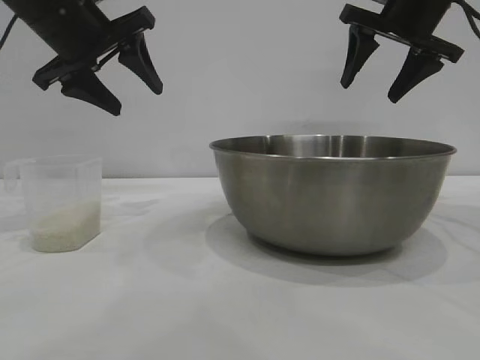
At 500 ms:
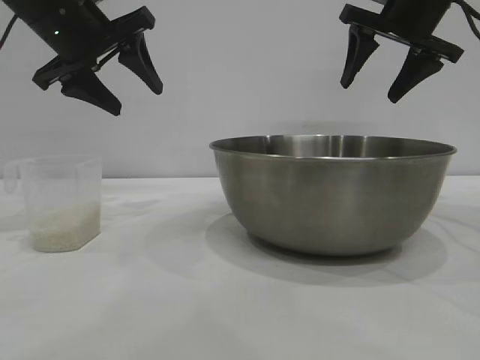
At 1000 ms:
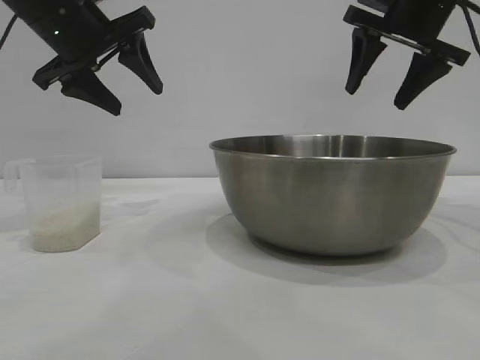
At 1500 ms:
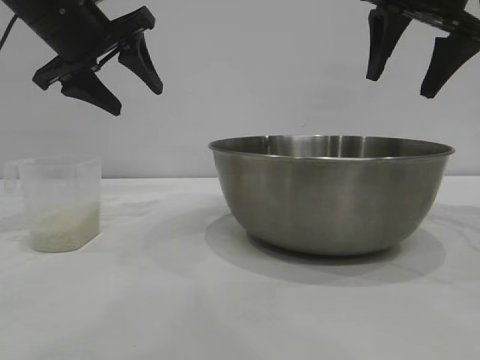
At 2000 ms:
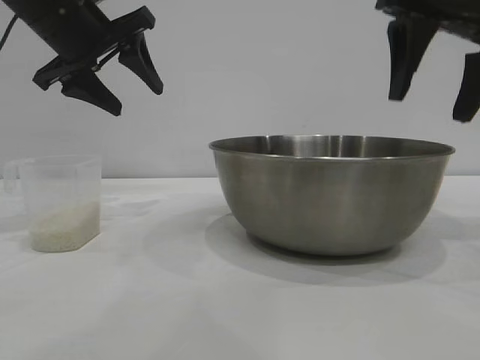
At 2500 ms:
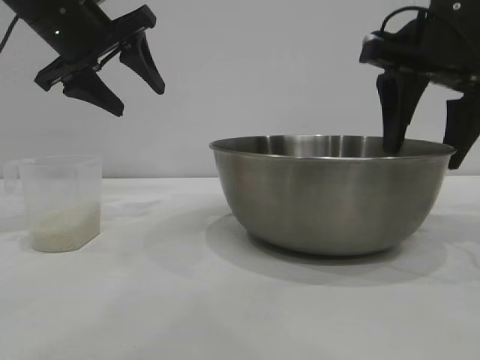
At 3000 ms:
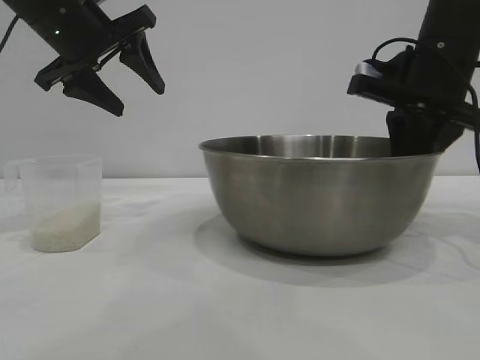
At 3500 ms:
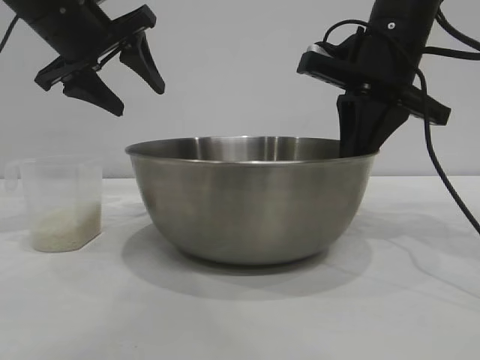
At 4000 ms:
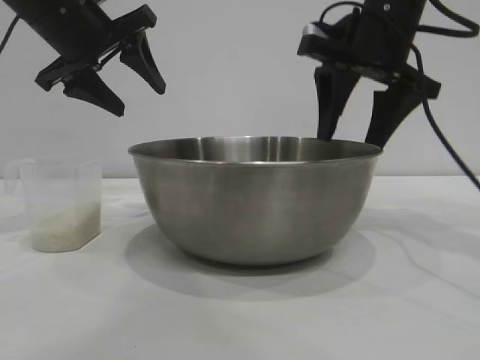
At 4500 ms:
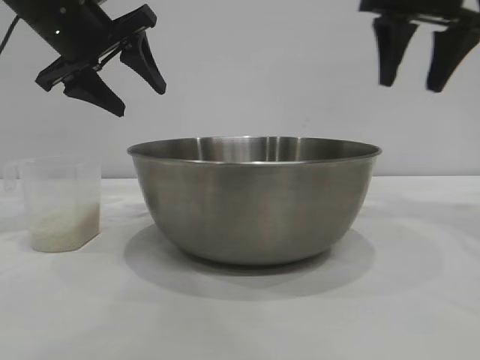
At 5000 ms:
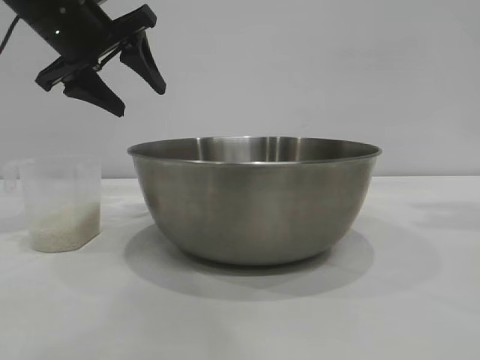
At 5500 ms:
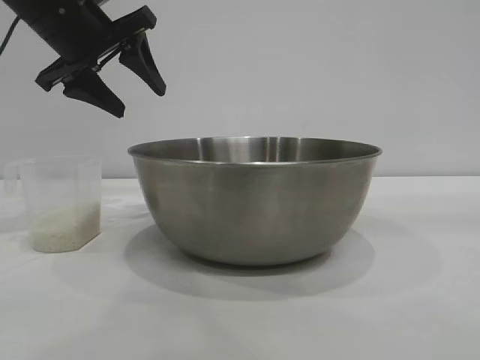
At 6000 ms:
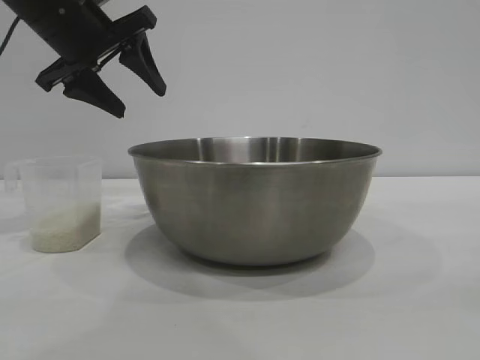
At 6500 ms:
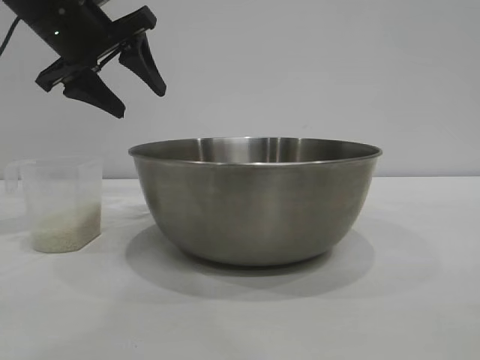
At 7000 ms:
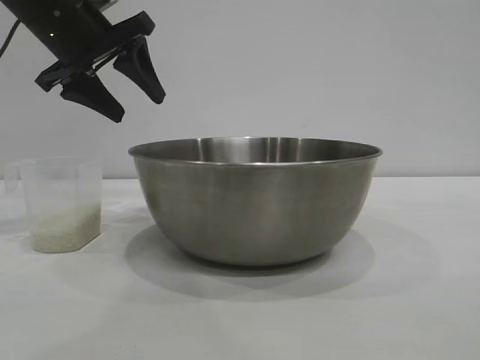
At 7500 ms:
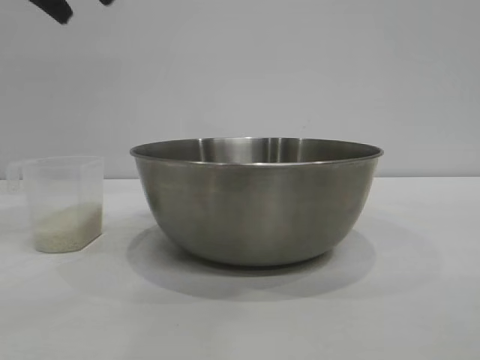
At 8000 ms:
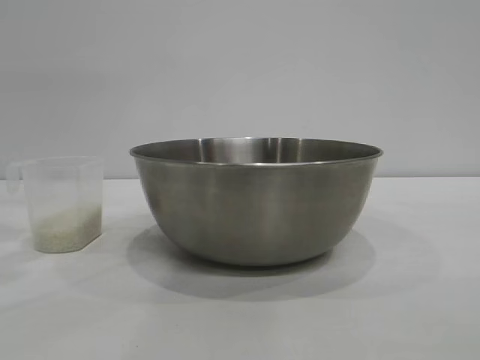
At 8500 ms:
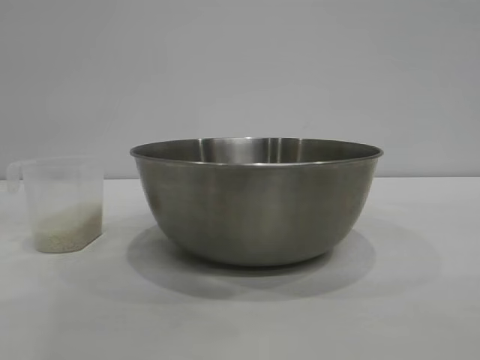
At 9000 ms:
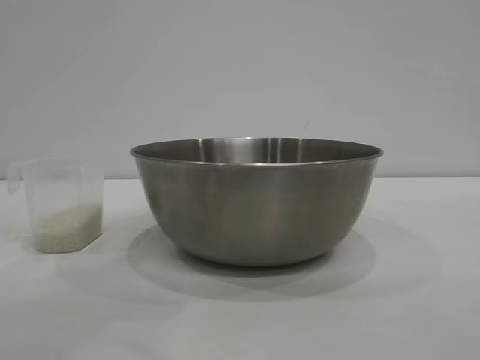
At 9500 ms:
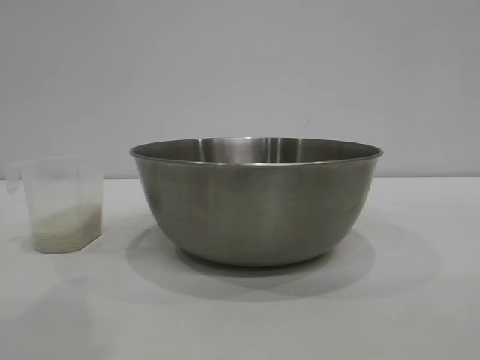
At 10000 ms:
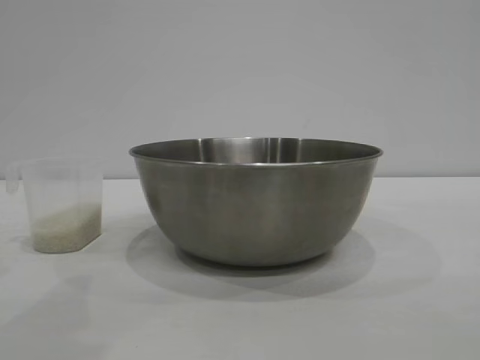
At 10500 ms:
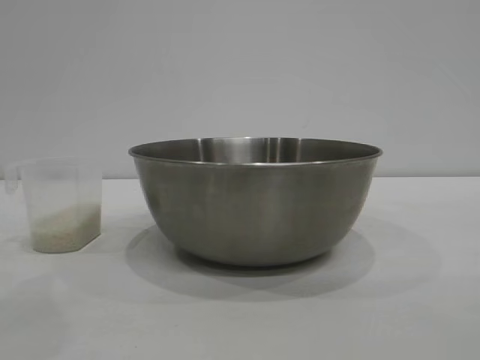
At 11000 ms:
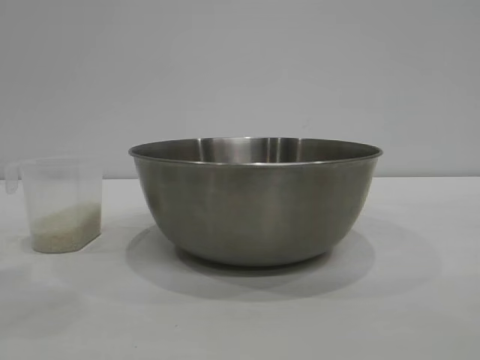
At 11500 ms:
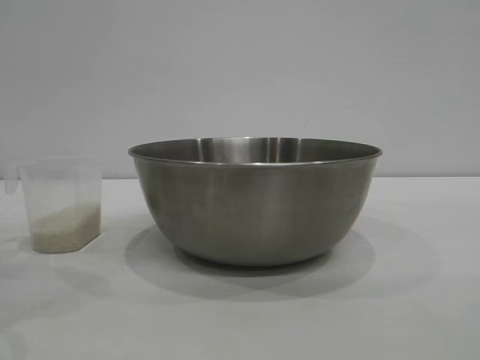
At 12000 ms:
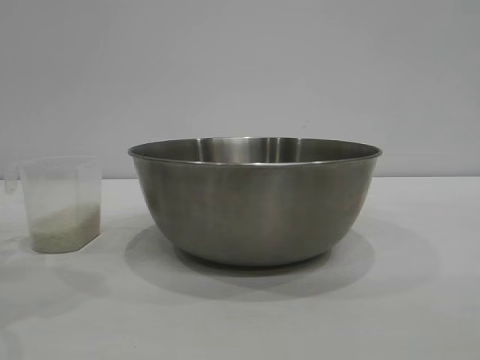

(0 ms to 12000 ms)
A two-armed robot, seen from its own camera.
Task of the whole recording: the right gripper grasp the rice container and place it in the center of the table, the left gripper grasp the rice scoop and pour the rice into the rice container.
Step, 0 ms - 4000 ms: Move the bowl to the center of view with the right gripper.

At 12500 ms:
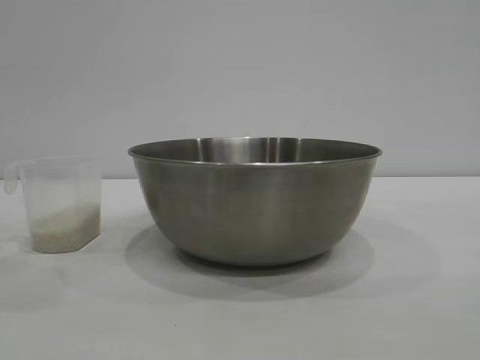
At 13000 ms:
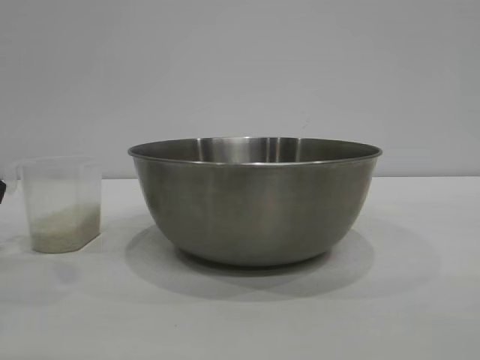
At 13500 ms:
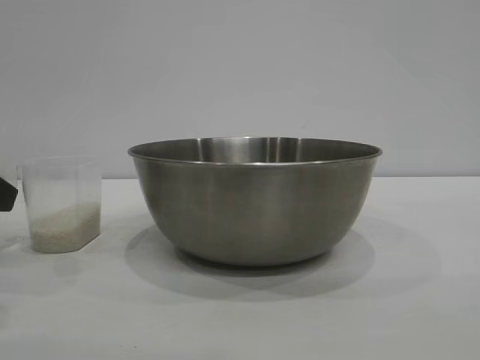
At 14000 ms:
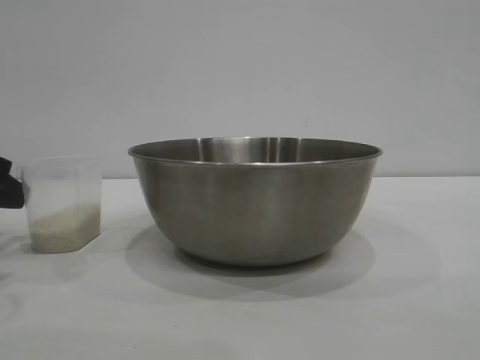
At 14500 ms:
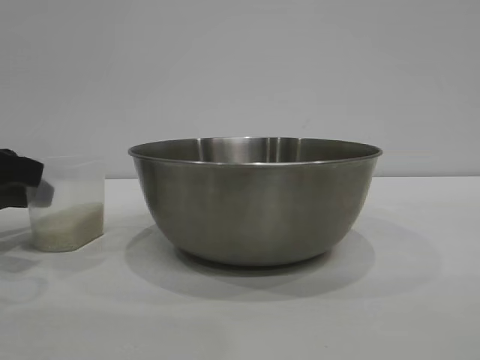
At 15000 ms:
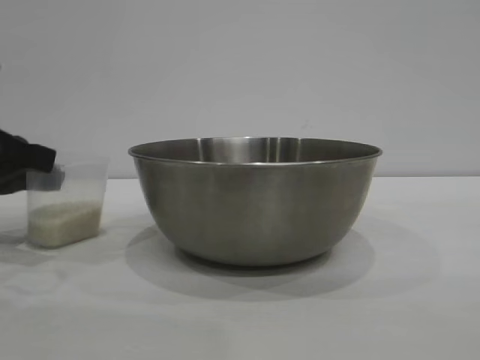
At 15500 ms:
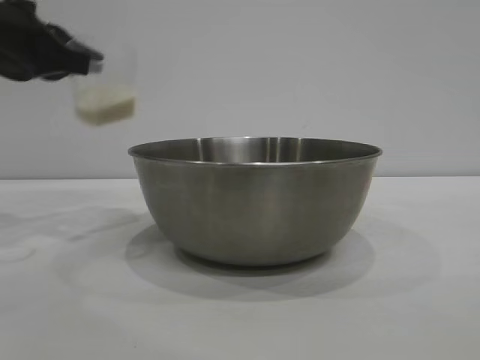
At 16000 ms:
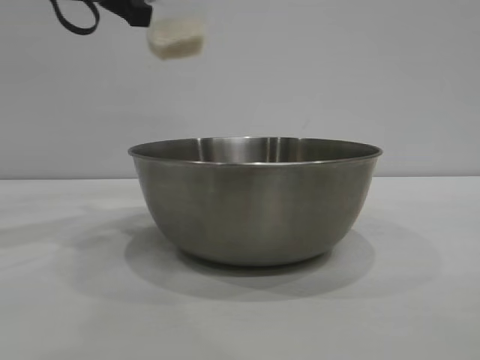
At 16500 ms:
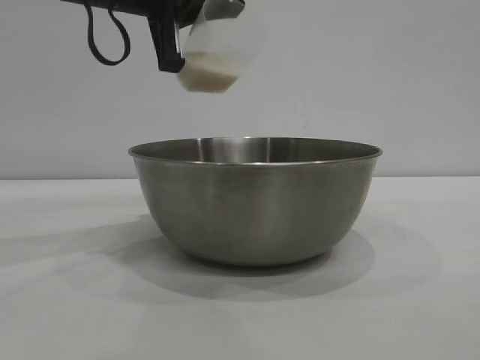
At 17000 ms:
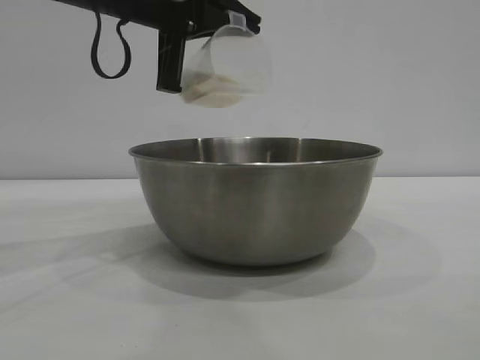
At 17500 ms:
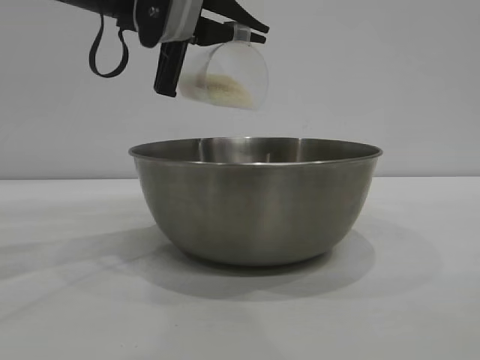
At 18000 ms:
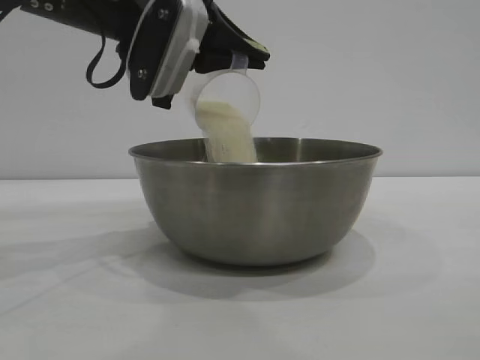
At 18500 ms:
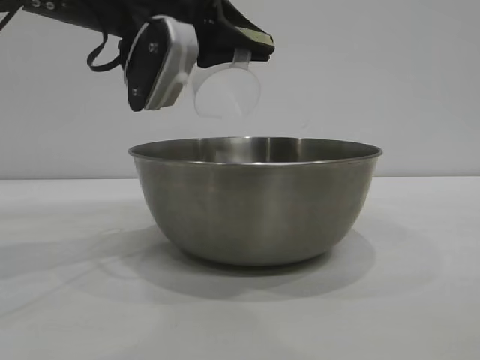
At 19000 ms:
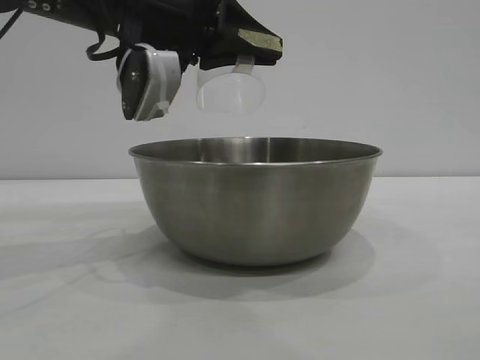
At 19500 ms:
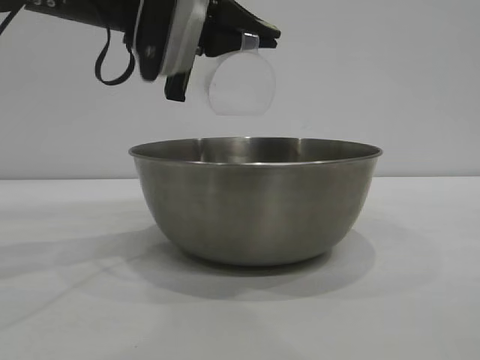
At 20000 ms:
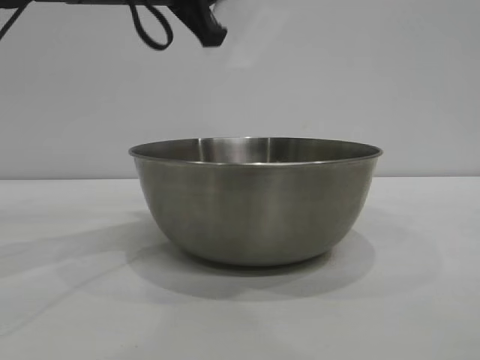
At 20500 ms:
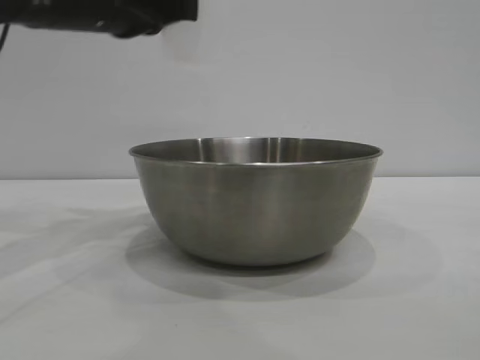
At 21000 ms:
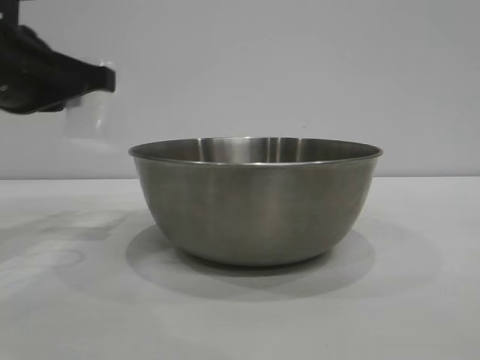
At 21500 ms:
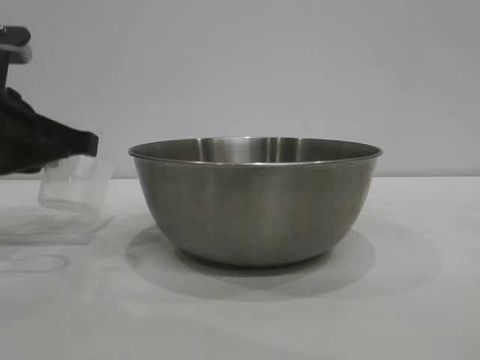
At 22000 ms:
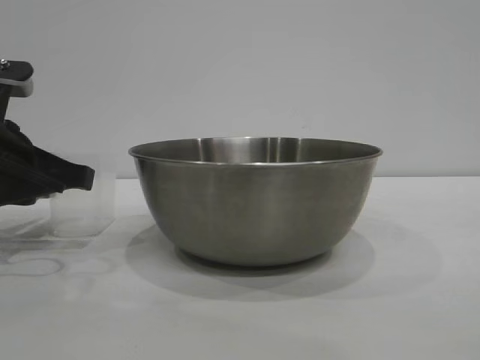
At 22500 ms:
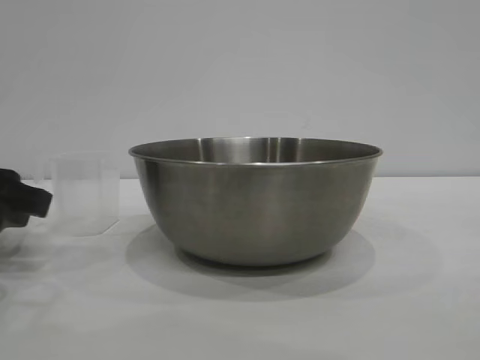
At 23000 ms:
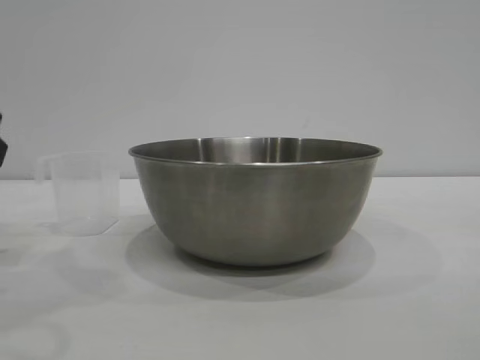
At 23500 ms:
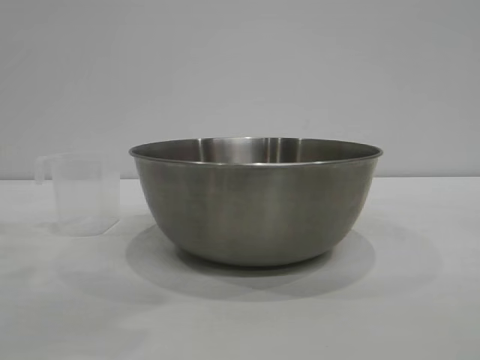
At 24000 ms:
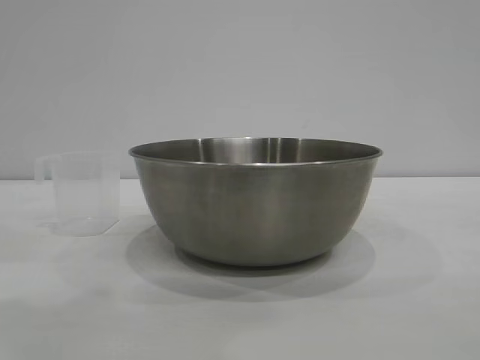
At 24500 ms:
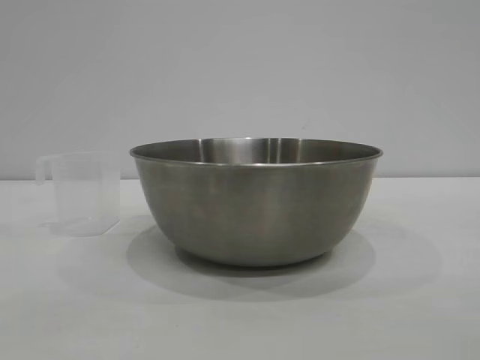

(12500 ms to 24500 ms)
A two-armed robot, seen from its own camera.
Task of the whole recording: the right gripper grasp the rice container and place it in the center of the table, the left gripper grasp the rice scoop and pour the rice into the rice container.
Step, 12500 ms - 15000 ms: Pick up the cup with rice in it with the left gripper.
Step, 15500 ms - 18500 ms: Pour the rice from the cup into the bowl with the left gripper.
Step, 19000 ms - 22500 ms: Place the cup on the table with the left gripper.

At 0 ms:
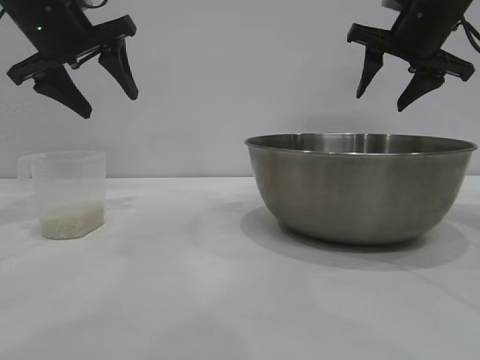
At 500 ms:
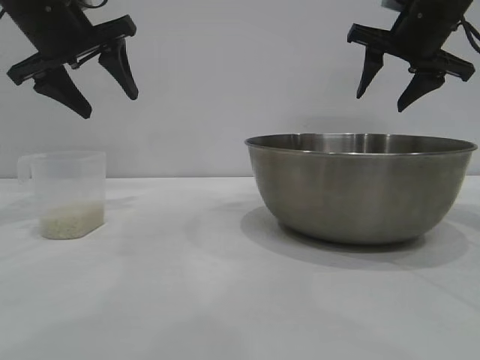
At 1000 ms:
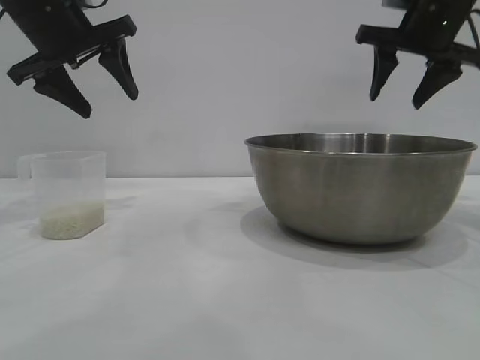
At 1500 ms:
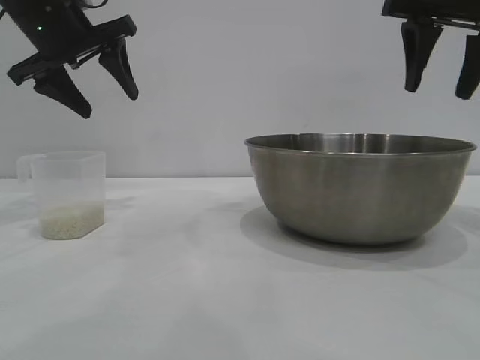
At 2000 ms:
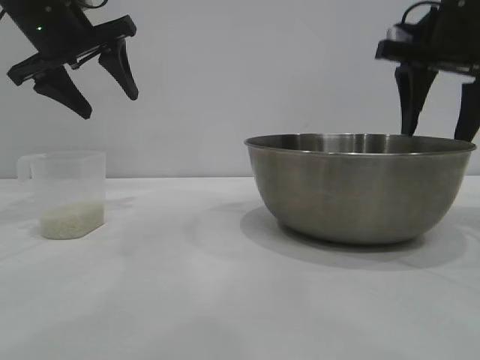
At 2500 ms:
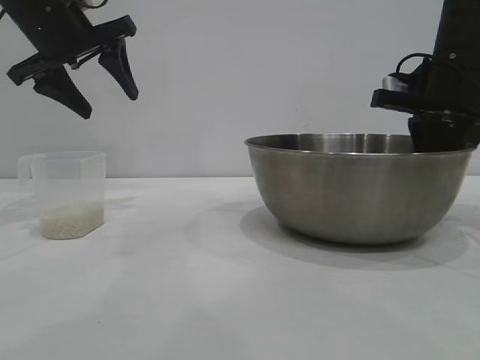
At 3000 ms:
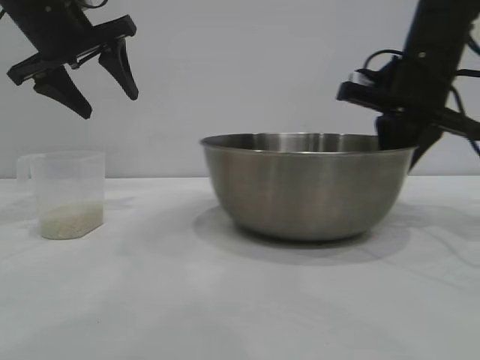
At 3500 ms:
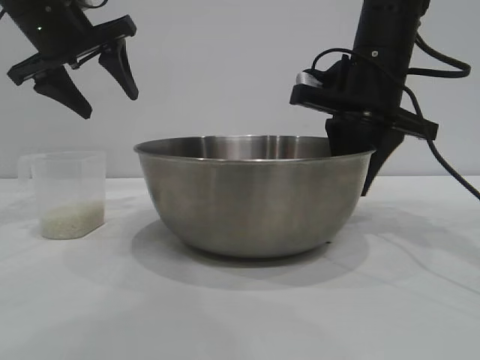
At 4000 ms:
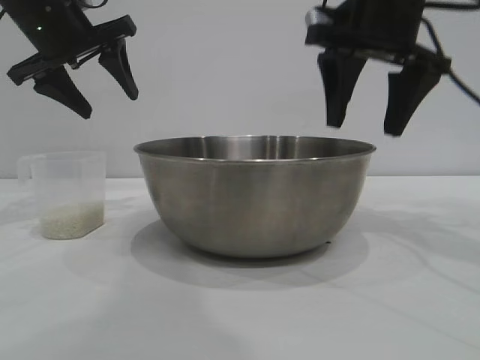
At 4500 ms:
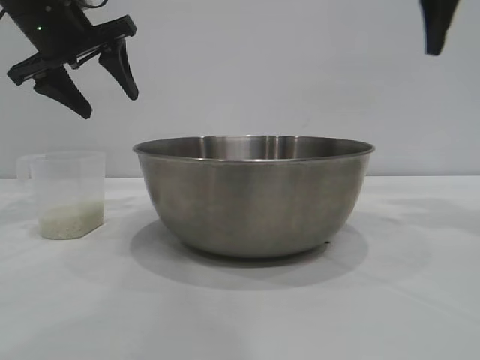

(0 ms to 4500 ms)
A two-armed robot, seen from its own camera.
Task of the whole recording: the right gripper grasp the rice container and place it in the center of the table, the left gripper grasp the rice scoop and pour the rice into the rice container.
Step, 0 ms - 4000 ms: Move the bowl to the center of view with the right gripper.
